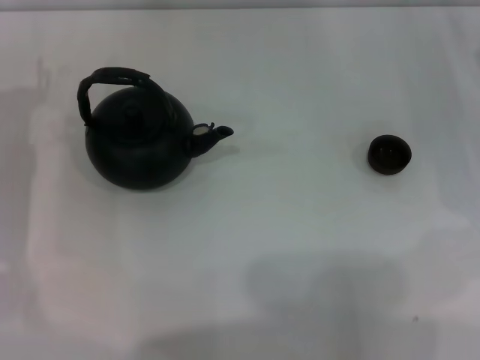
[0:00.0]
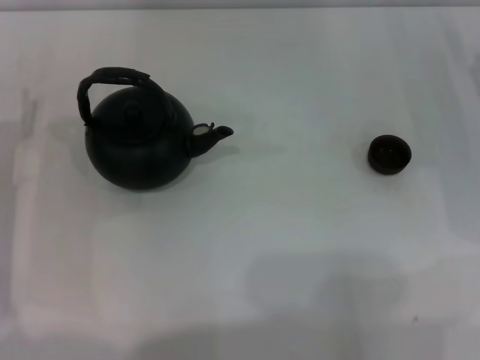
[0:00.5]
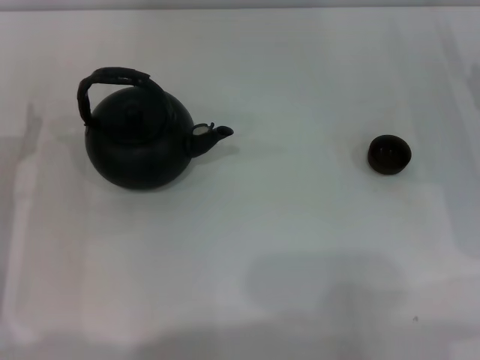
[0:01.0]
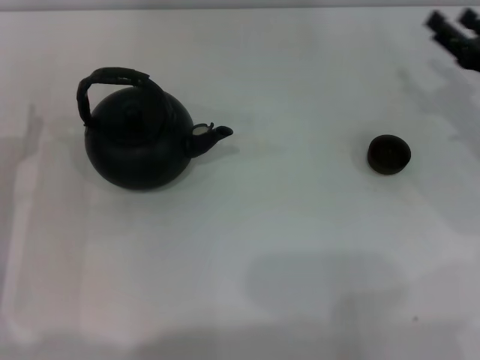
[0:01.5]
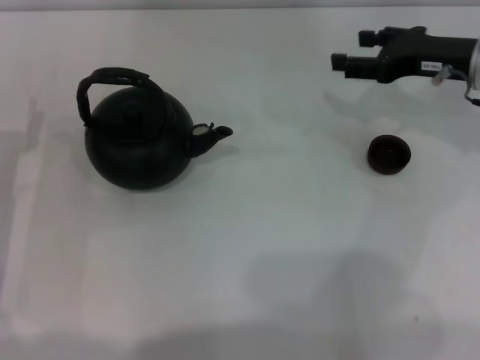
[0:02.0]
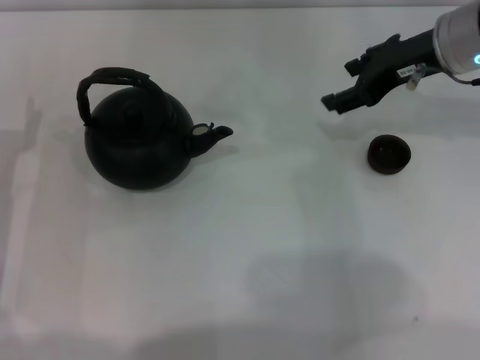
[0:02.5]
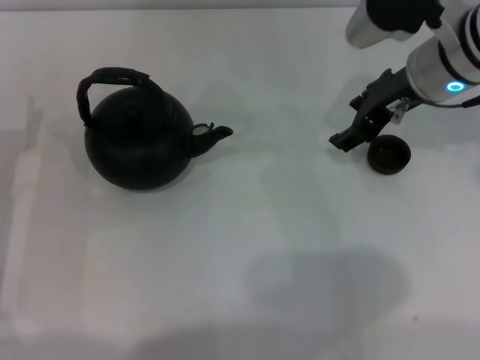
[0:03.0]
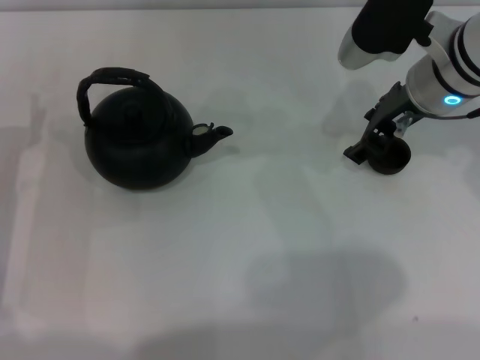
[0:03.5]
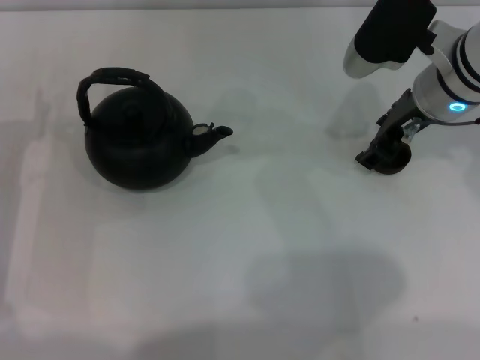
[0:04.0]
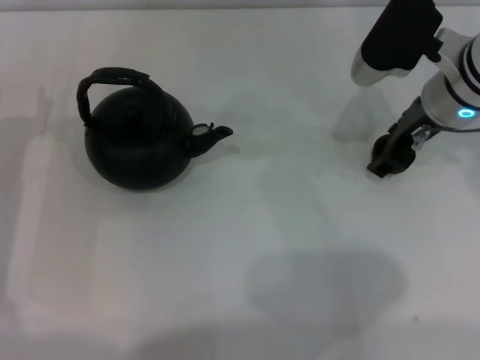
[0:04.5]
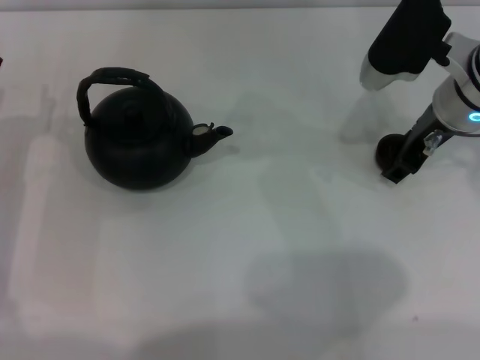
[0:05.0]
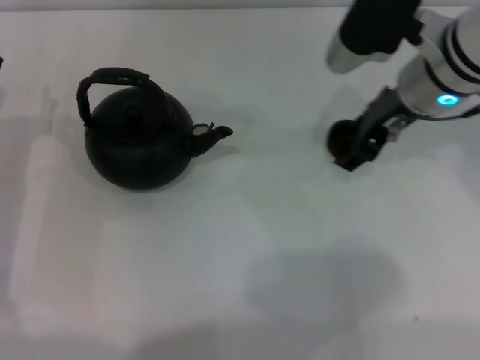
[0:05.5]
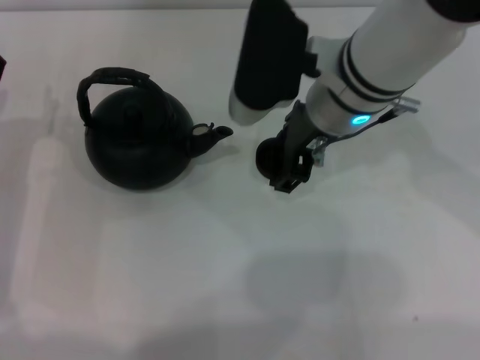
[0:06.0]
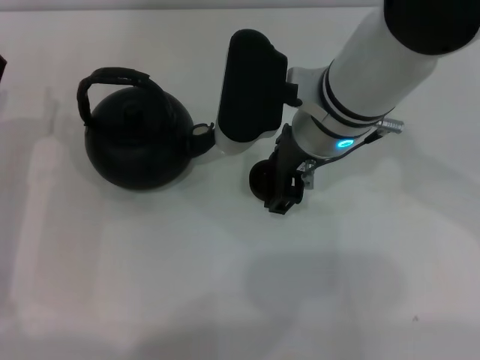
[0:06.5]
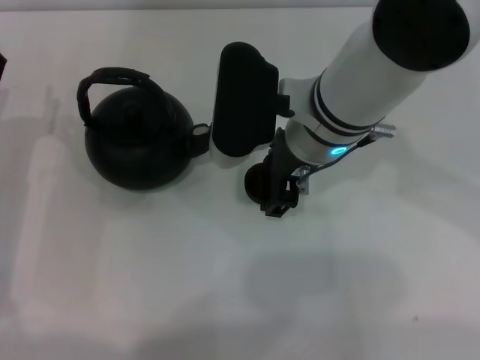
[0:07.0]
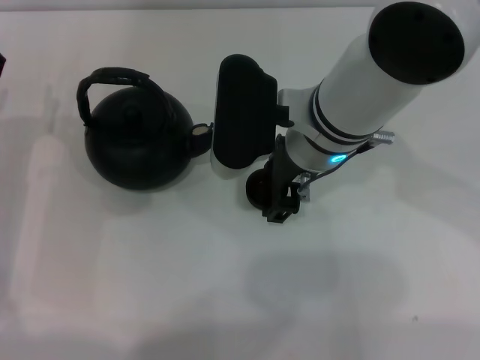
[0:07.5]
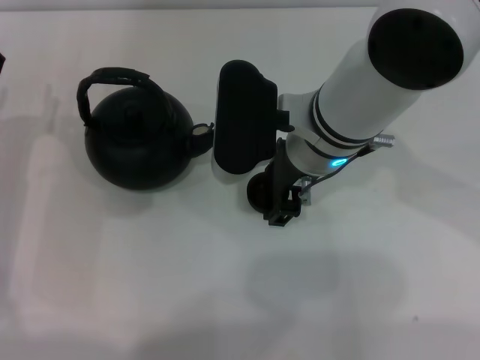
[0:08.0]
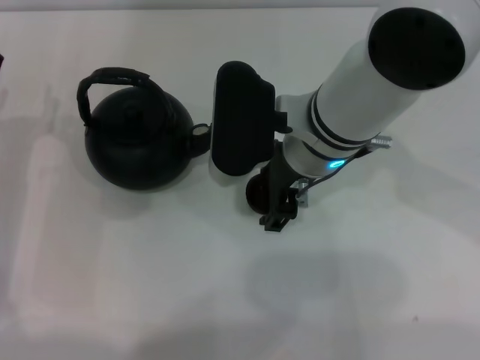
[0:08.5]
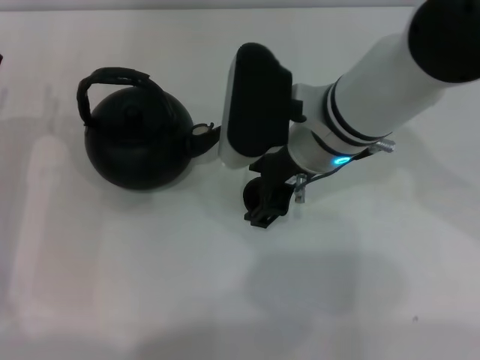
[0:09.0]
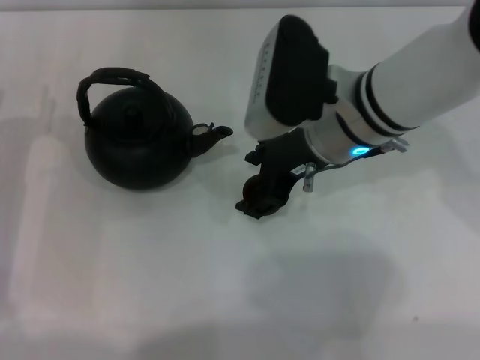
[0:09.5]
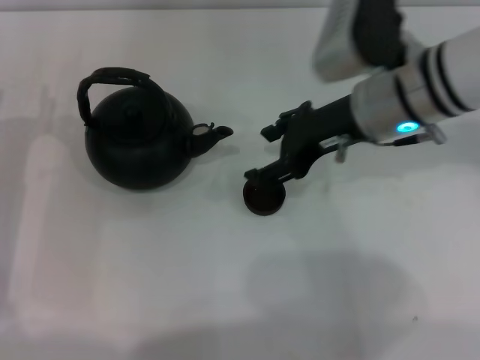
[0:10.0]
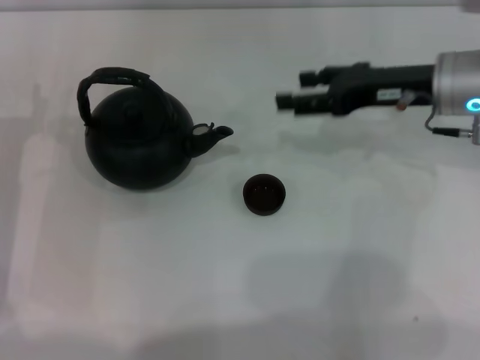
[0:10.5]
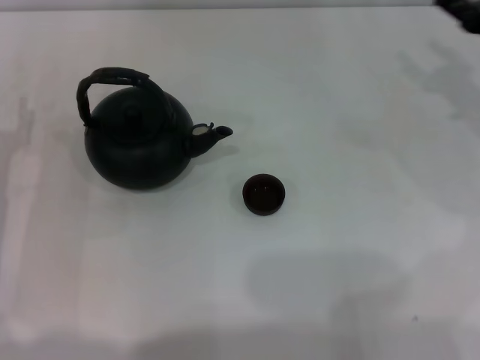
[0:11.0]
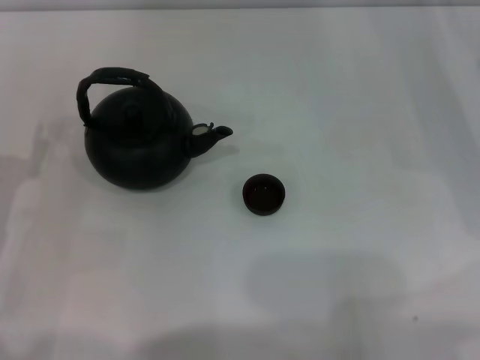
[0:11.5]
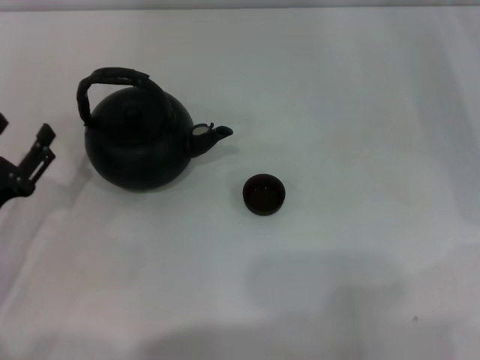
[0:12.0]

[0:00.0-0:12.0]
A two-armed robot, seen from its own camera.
Task of the whole recording: Grasp the handle of the teapot with one hand and pour tea into the teacup.
Step, 0:00.0 to 0:05.0: Pick up the teacup with the right gripper.
Step, 0:05.5 to 0:10.0: Place the teacup in the center of view with the right gripper.
0:00.0 to 0:02.0: The right gripper heads to the left and upward, covering roughly 10 cm.
0:02.0 to 0:04.0: The right gripper goes approximately 5 cm to the left.
0:04.0 to 0:06.0: The right gripper moves to the left, approximately 10 cm.
0:06.0 to 0:08.0: The grippers move only a little.
0:08.0 to 0:10.0: The right gripper moves to the right, some 10 cm.
0:10.0 to 0:12.0: The right gripper heads to the right, covering roughly 20 cm. The left gripper goes some 5 cm backward.

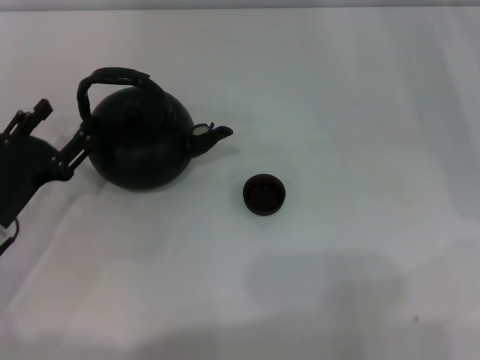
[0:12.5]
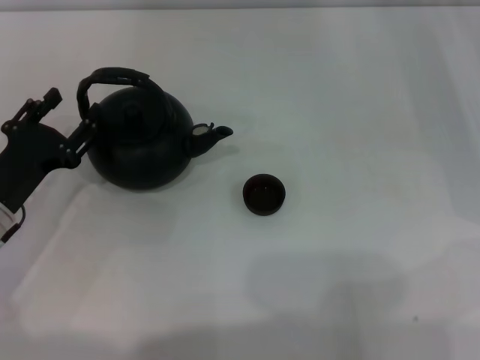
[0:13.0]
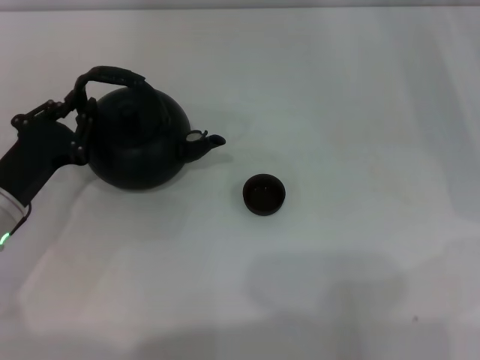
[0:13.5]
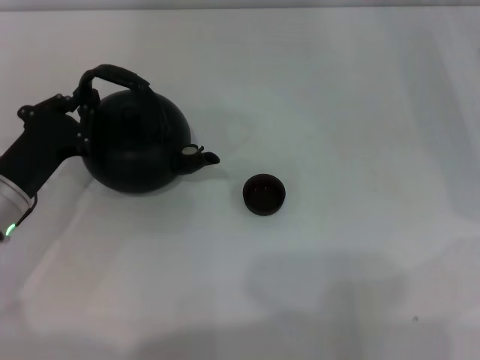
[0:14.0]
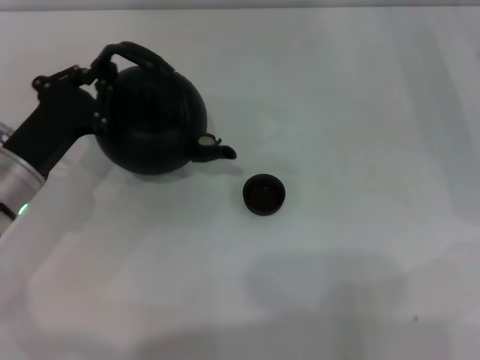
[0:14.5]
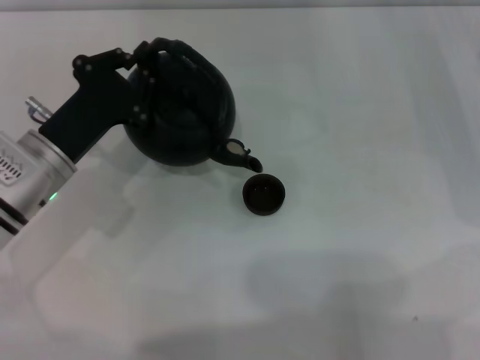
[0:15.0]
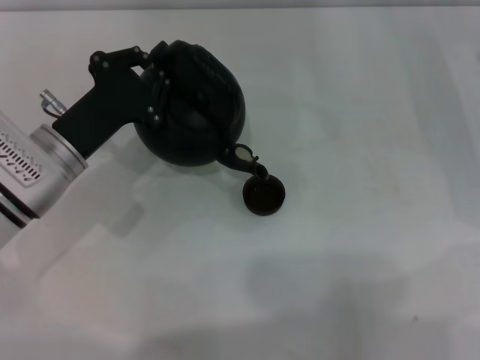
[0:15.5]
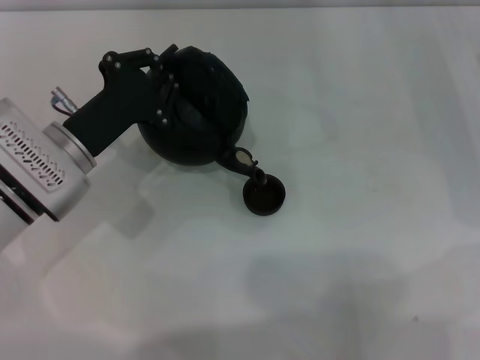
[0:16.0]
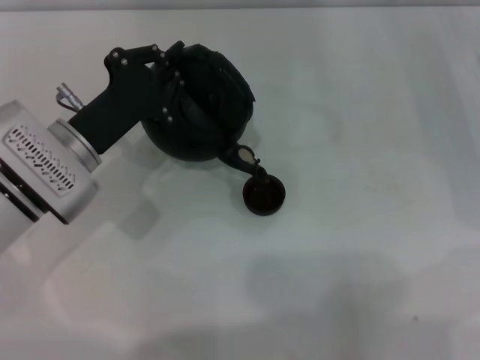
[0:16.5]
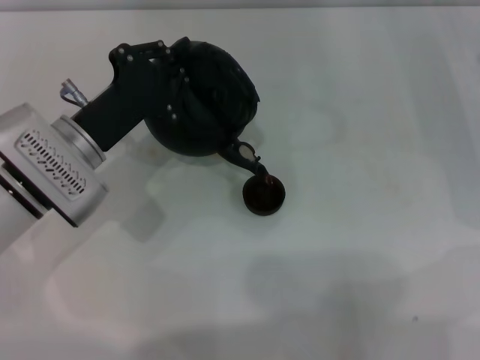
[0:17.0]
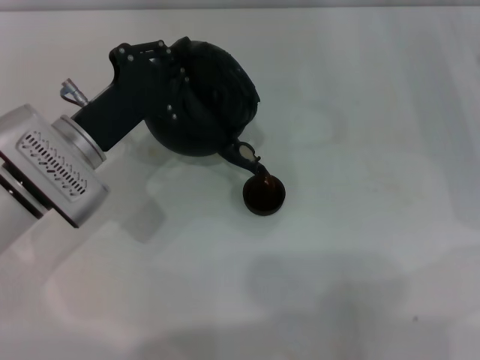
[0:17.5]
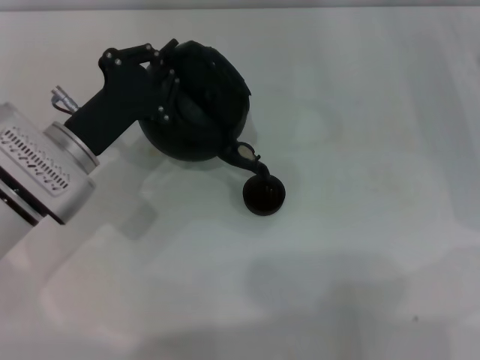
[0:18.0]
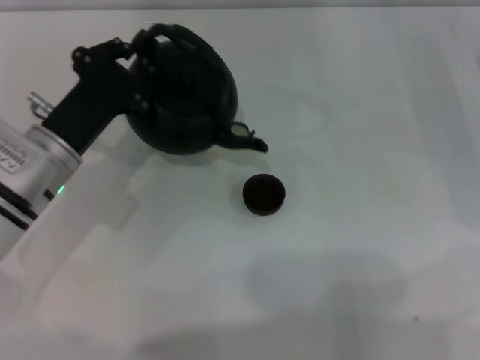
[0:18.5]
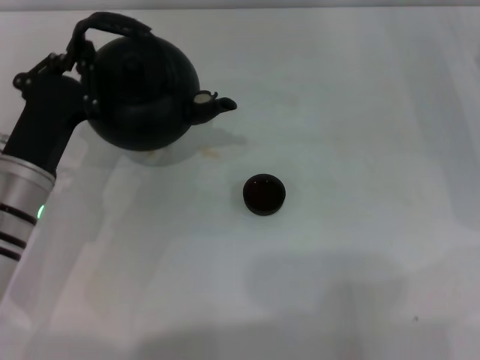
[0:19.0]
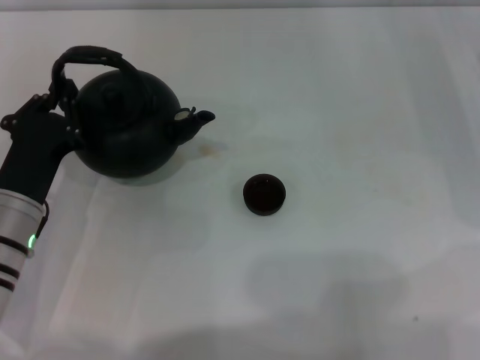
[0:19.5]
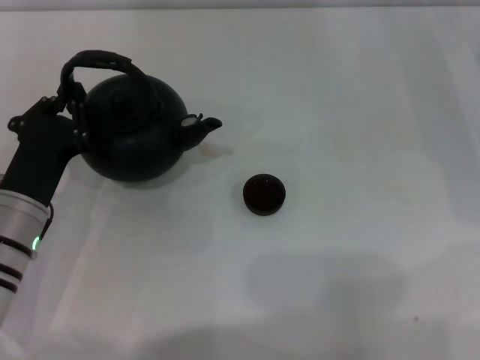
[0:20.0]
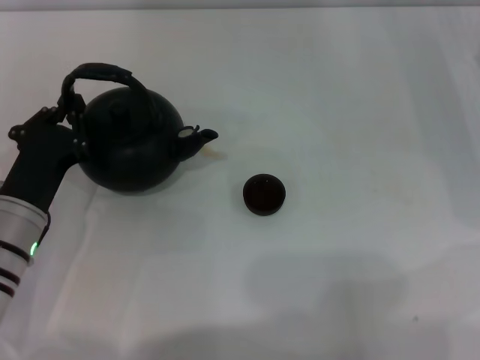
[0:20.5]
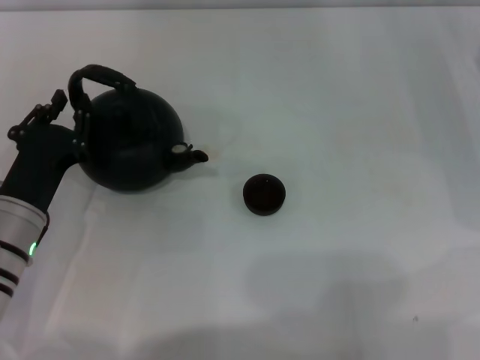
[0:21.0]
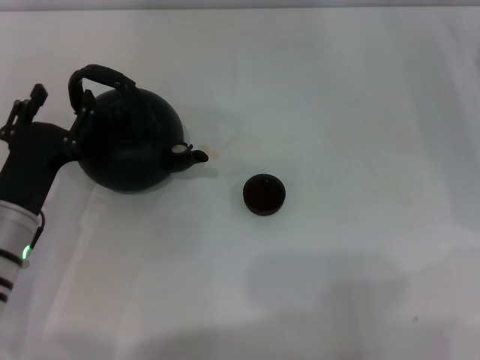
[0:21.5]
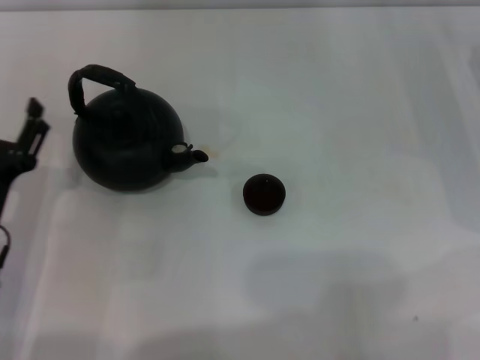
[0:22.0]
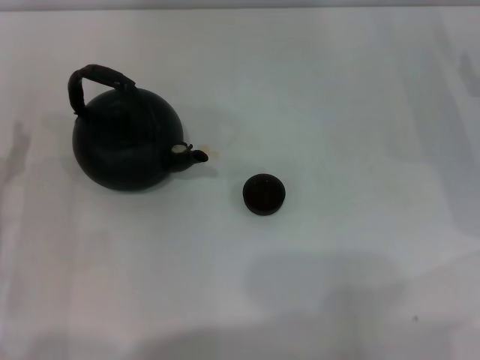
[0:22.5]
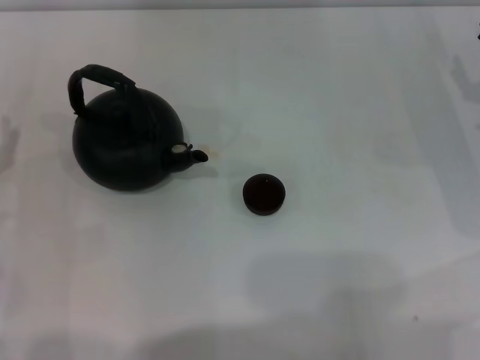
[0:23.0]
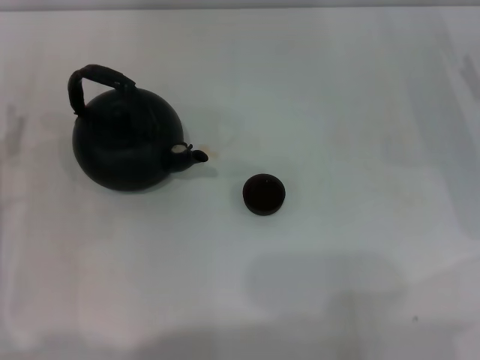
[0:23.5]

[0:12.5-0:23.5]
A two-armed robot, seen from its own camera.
Task of the whole recording: Grasp the handle of the teapot with one hand and pour tea into the teacup.
Step, 0:14.5 to 0:18.5: Pour tea into the teacup with the left gripper.
Step, 0:19.0 to 0:21.5: Put down the teapot with the left gripper.
0:12.5 to 0:14.5: The left gripper shifts by some 5 cm, and closes up.
0:14.5 to 0:16.0: The left gripper shifts by roughly 5 cm.
0:16.0 to 0:18.0: The grippers make only small movements.
0:18.0 to 0:20.0: The left gripper shifts roughly 5 cm backward.
0:20.0 to 0:21.5: The left gripper opens its fingers.
0:21.5 to 0:23.5: The left gripper heads to the left, covering some 5 cm, and opens.

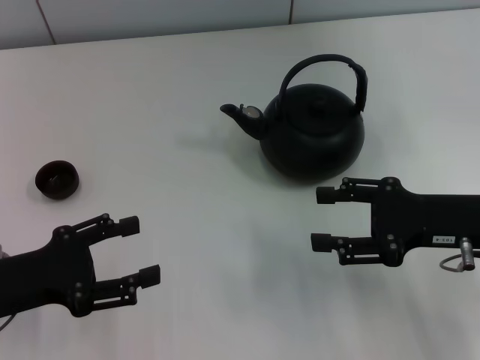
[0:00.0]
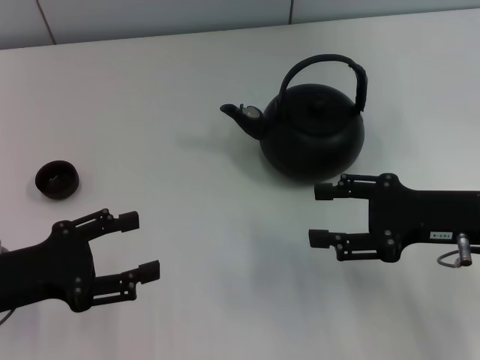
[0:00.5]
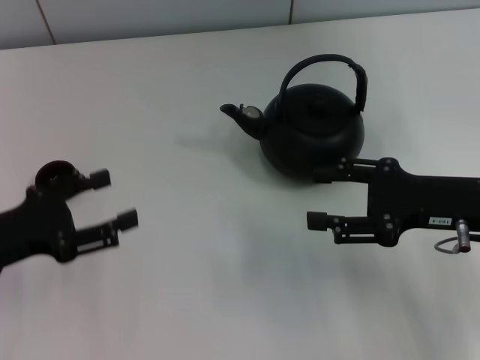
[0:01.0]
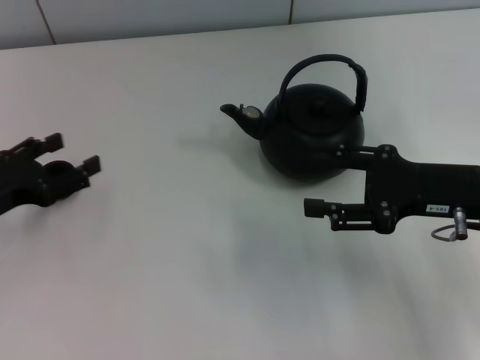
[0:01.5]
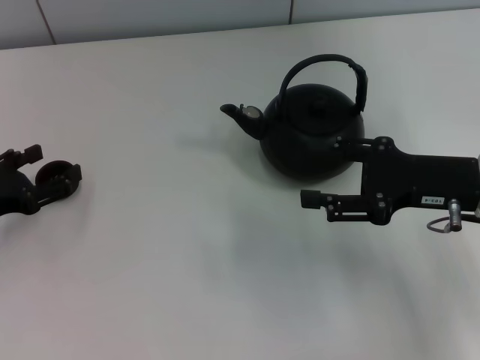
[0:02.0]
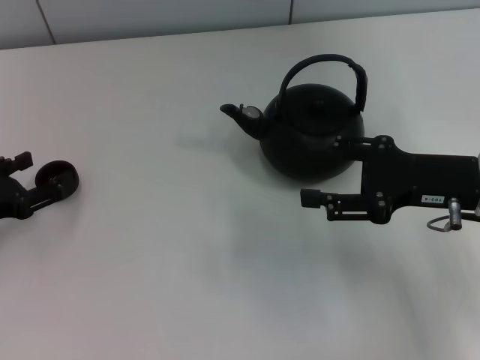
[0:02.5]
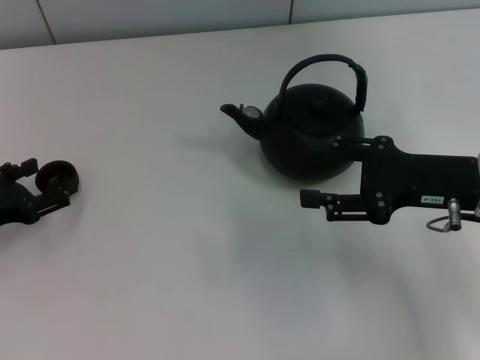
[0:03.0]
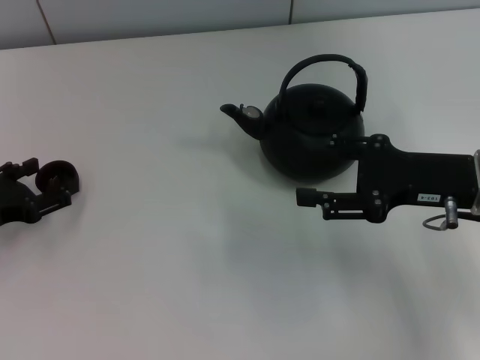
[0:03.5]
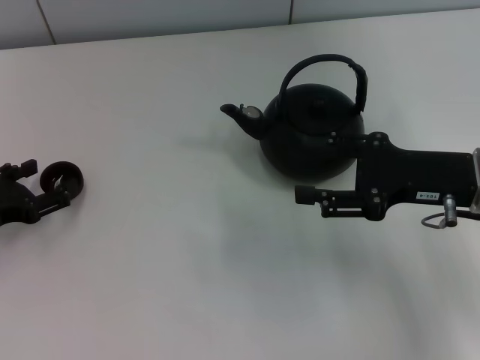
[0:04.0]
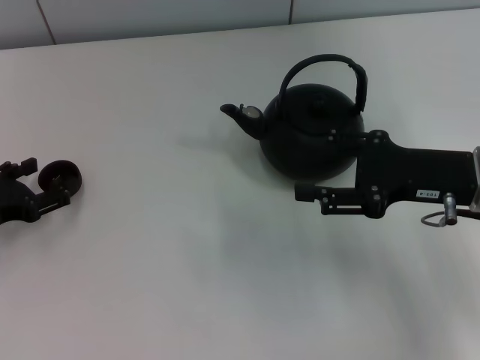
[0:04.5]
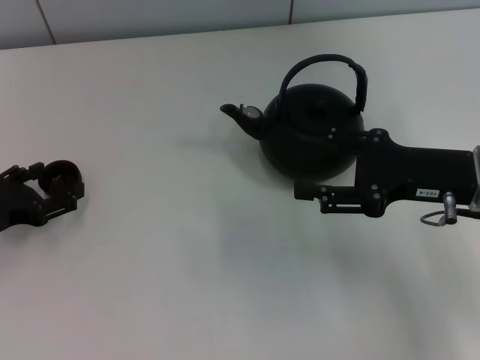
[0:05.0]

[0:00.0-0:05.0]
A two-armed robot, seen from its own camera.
Task of the whole recording: Grasp the handle of the teapot with one hand and pour tea into the teacup.
0:00.0 to 0:02.5: The left gripper is displaced forward by approximately 5 cm.
0:02.5 to 0:05.0: The grippers make only small movements.
